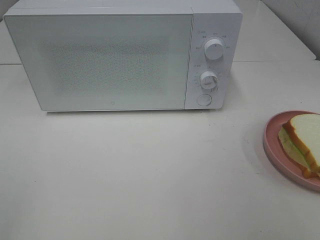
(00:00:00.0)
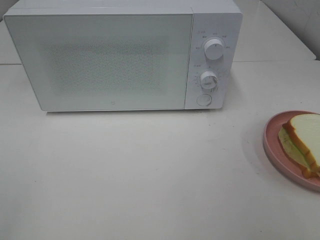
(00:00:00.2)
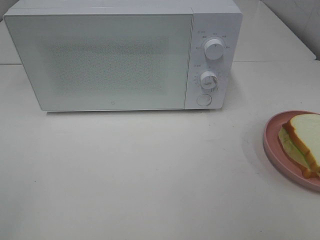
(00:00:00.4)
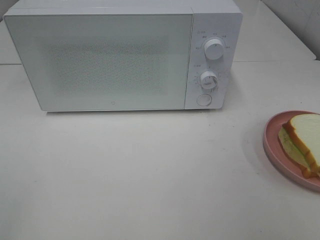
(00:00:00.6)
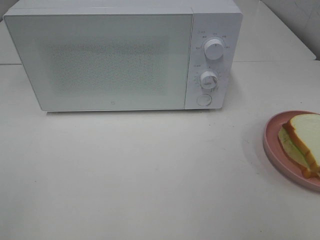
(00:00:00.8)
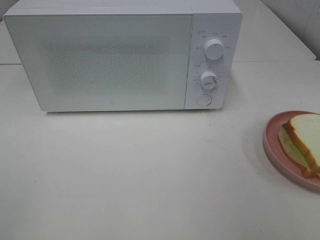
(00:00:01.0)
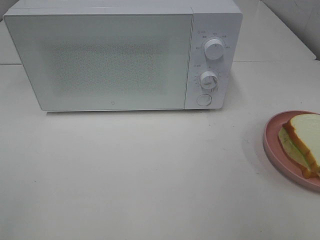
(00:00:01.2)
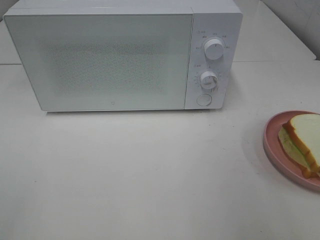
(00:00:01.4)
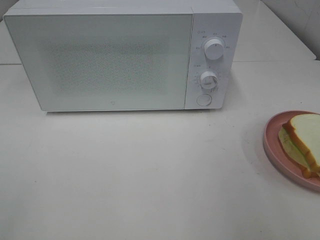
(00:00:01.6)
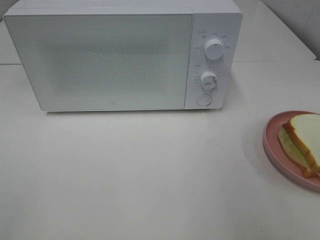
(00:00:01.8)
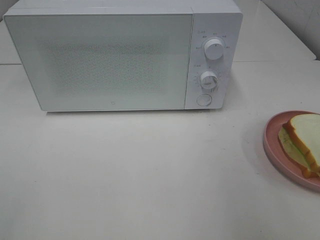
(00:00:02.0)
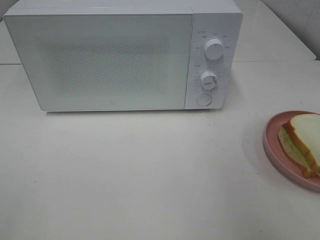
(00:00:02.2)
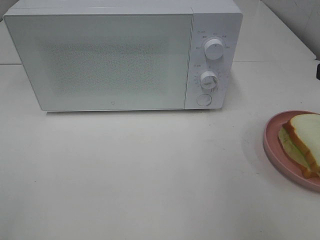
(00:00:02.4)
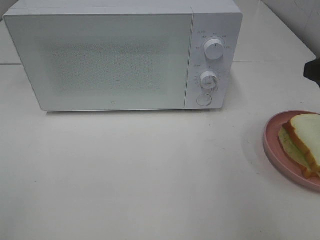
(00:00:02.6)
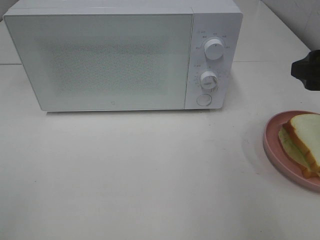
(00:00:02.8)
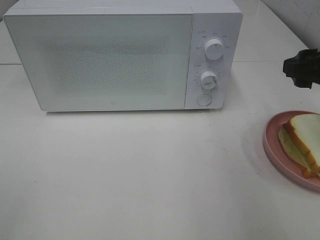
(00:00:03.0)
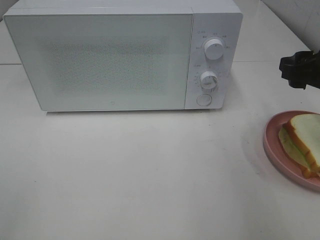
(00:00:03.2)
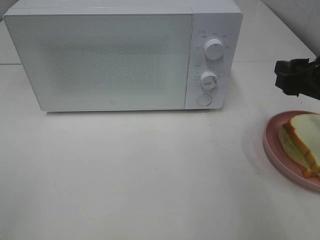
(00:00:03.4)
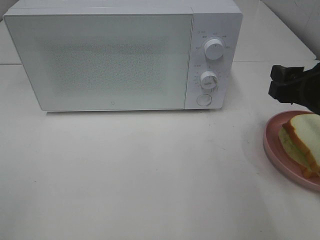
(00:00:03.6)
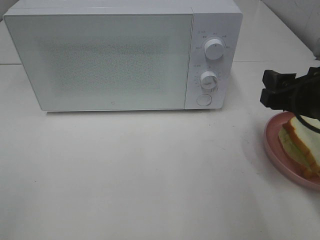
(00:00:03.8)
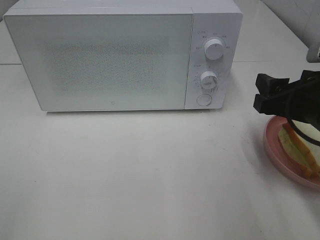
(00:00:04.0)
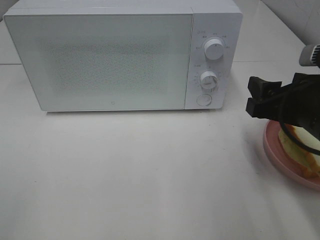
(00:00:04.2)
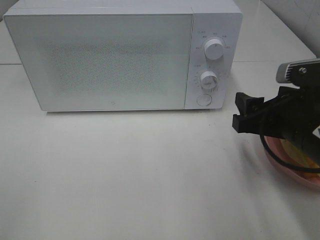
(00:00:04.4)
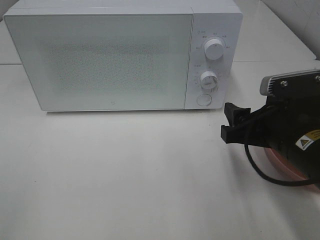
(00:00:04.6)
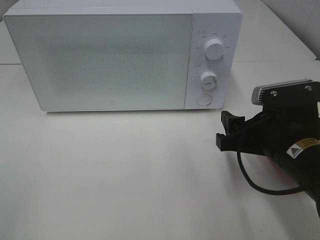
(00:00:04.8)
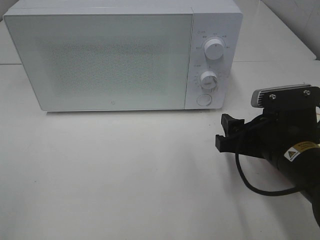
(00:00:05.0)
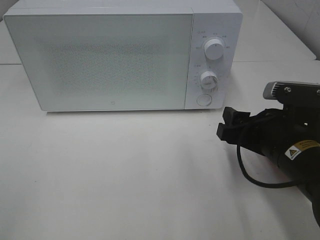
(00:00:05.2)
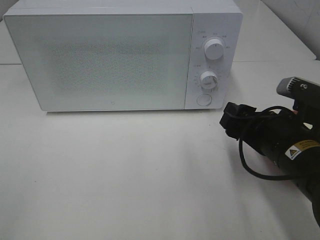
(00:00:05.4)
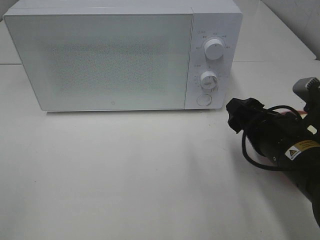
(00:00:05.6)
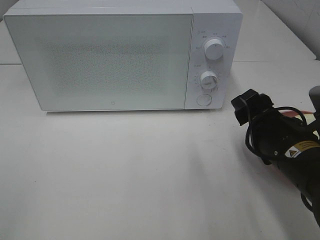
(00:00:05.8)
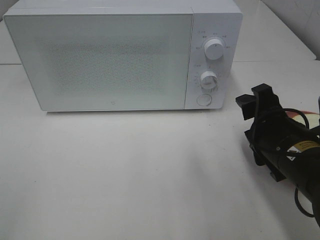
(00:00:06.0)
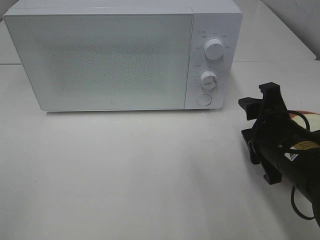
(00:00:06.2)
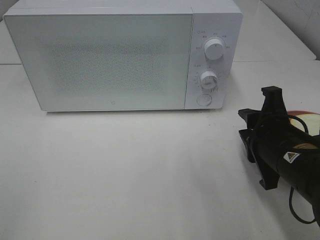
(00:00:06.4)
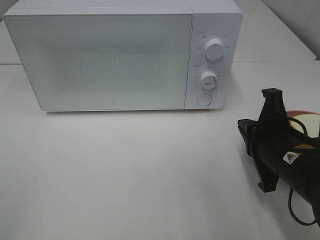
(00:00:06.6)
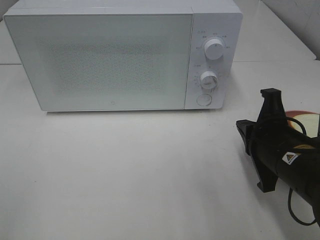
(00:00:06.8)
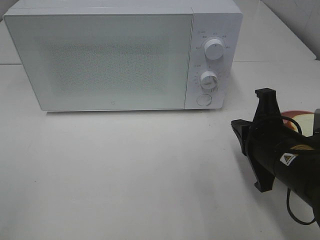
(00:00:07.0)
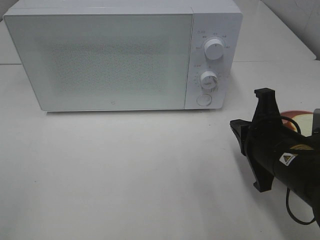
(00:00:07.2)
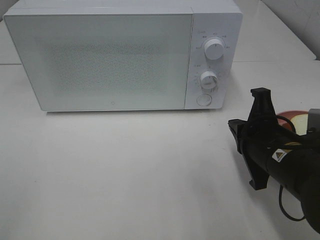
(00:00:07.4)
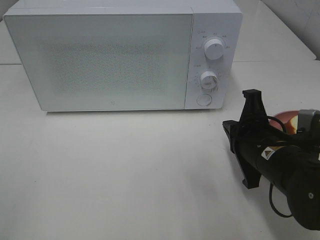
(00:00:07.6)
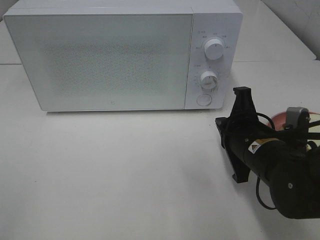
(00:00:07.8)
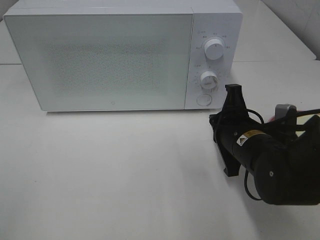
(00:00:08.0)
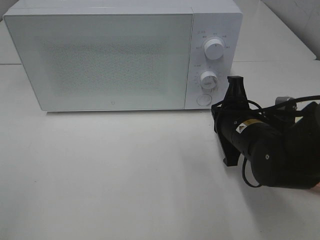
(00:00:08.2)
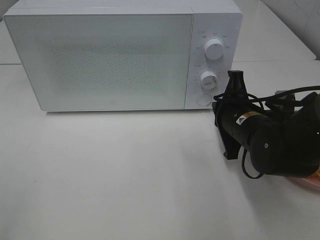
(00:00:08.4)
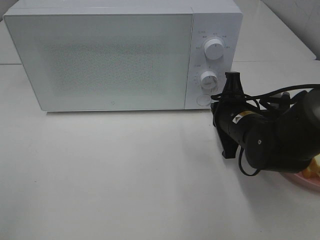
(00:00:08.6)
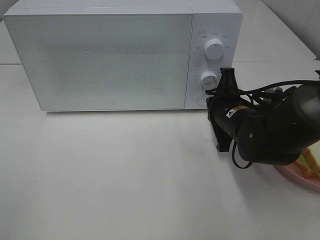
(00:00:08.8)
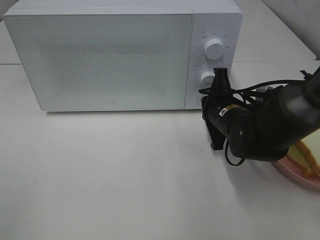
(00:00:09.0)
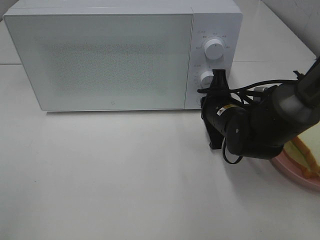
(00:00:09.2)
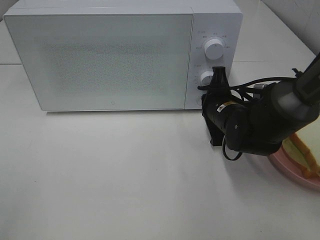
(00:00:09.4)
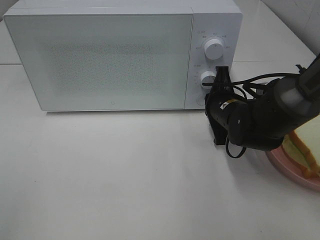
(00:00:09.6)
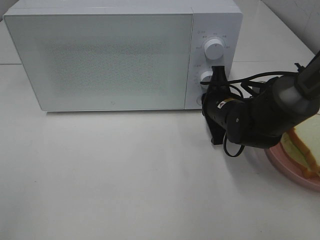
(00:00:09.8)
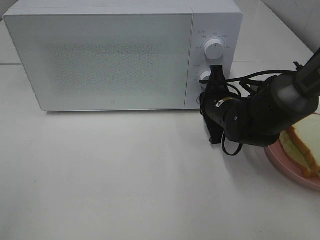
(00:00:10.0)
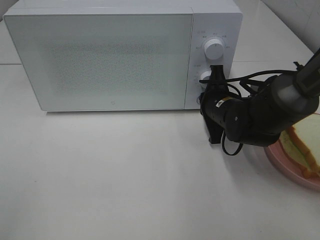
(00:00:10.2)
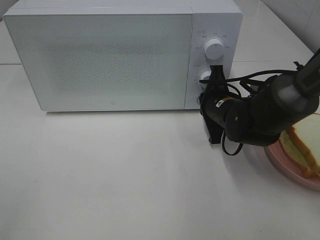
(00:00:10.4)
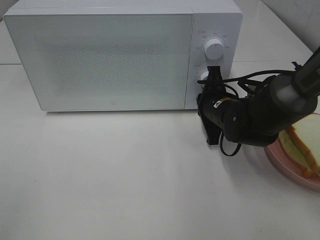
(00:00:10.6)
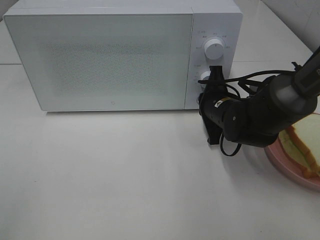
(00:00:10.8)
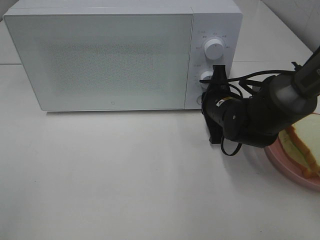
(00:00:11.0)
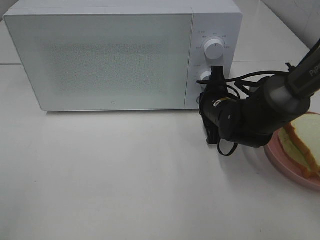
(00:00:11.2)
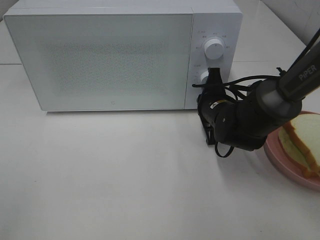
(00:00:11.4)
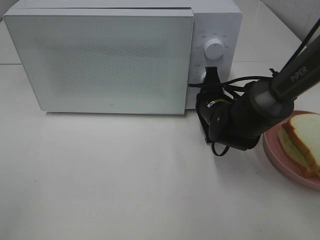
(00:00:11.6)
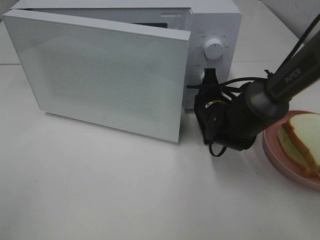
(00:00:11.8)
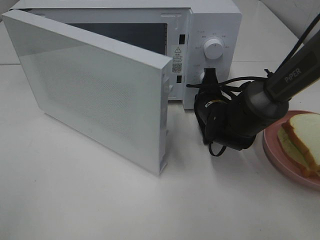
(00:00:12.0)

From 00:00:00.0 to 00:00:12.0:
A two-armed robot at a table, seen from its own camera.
Task of the whole recording: Heat Sandwich.
From 00:00:01.6 to 00:00:03.0: The right gripper shifts approximately 15 cm forward and downward.
From 00:00:03.0 to 00:00:04.4: The right gripper travels to the left and downward by approximately 10 cm.
From 00:00:06.0 to 00:00:07.6: The right gripper closes its fingers.
From 00:00:07.6 to 00:00:09.0: The right gripper goes about 10 cm forward.
From 00:00:09.0 to 00:00:10.4: The grippers move only a little.

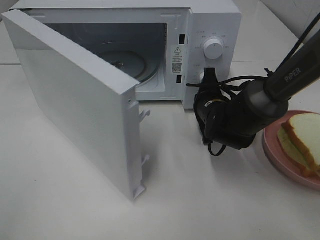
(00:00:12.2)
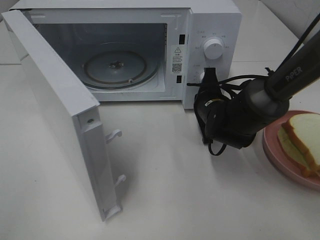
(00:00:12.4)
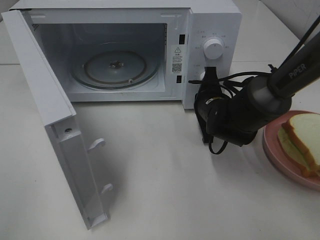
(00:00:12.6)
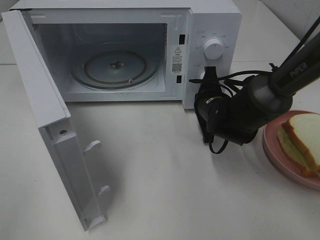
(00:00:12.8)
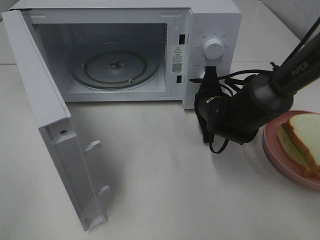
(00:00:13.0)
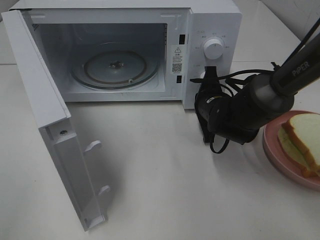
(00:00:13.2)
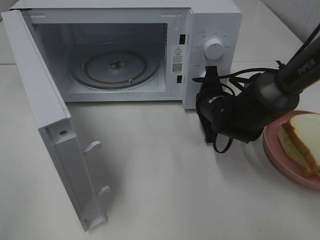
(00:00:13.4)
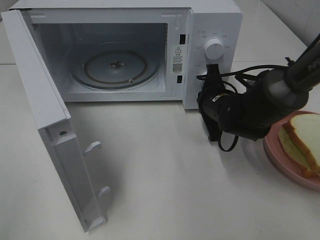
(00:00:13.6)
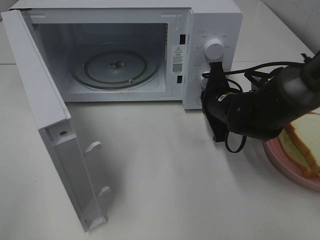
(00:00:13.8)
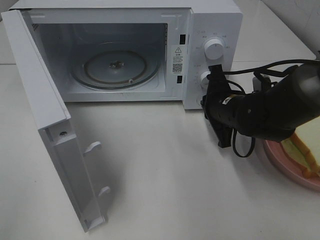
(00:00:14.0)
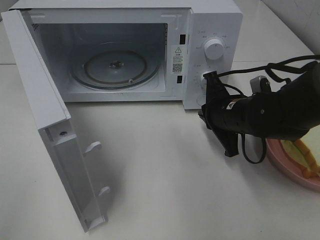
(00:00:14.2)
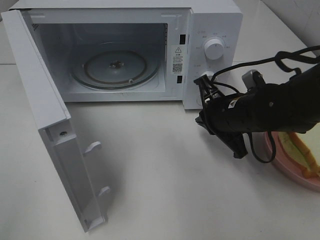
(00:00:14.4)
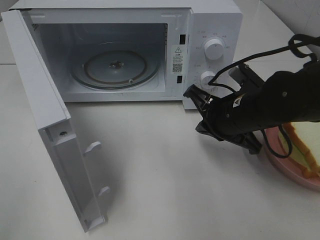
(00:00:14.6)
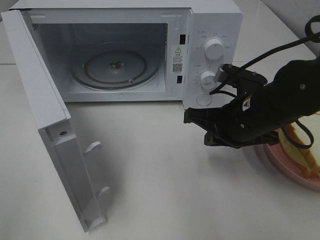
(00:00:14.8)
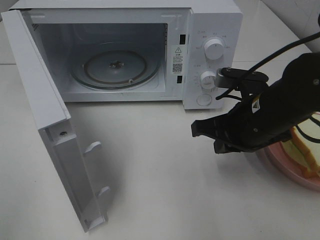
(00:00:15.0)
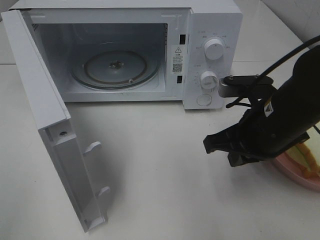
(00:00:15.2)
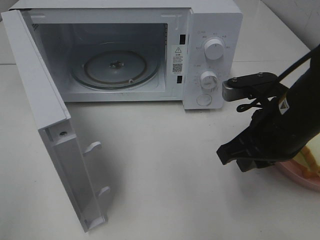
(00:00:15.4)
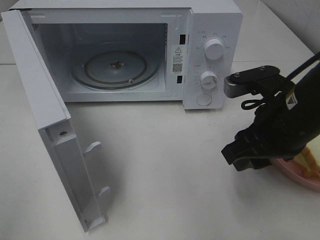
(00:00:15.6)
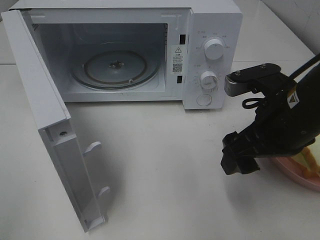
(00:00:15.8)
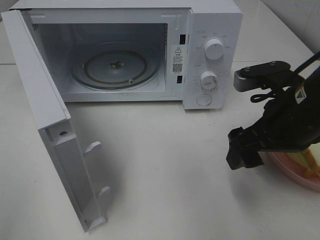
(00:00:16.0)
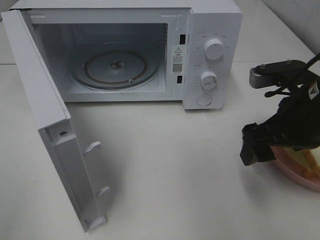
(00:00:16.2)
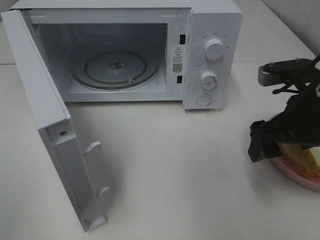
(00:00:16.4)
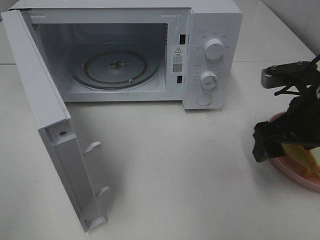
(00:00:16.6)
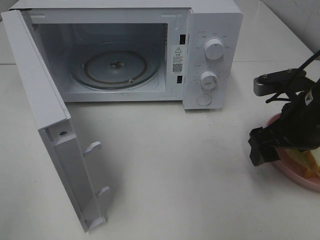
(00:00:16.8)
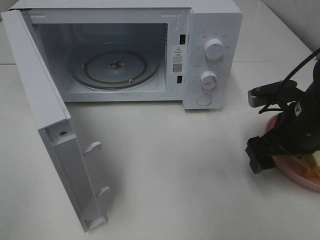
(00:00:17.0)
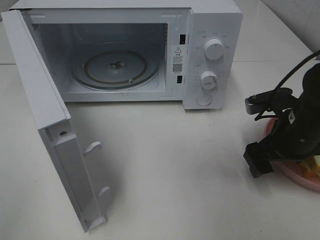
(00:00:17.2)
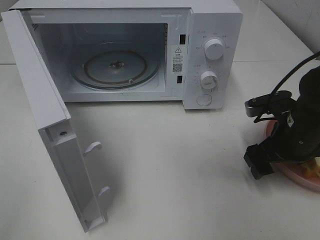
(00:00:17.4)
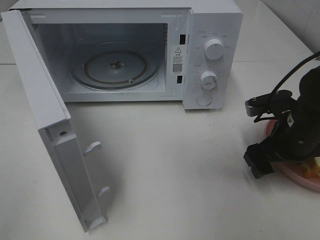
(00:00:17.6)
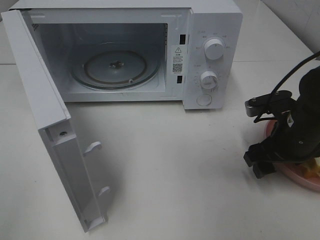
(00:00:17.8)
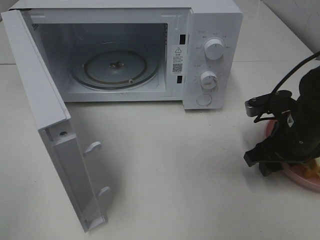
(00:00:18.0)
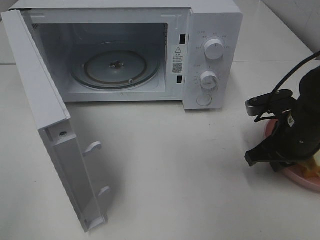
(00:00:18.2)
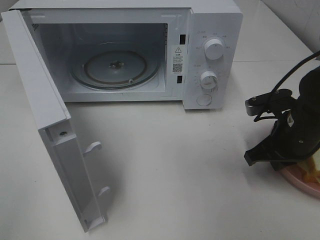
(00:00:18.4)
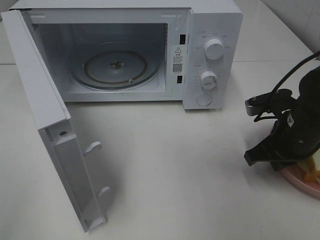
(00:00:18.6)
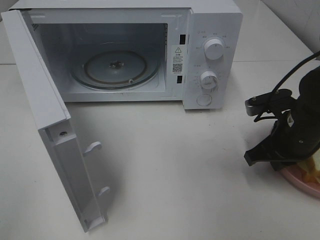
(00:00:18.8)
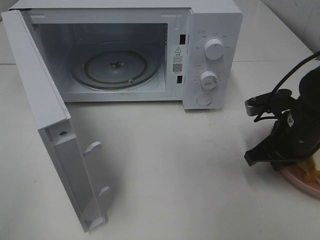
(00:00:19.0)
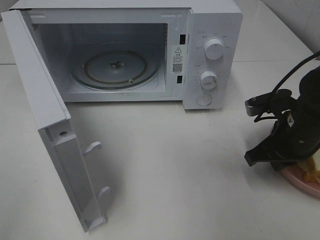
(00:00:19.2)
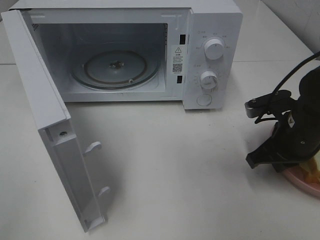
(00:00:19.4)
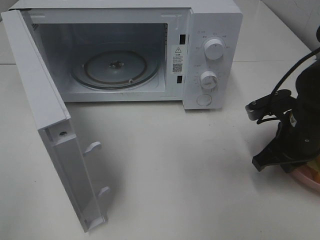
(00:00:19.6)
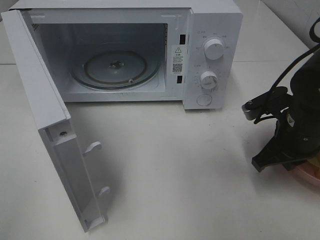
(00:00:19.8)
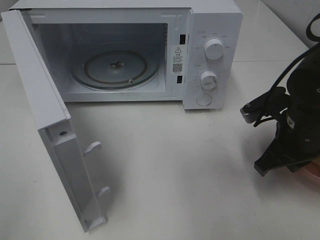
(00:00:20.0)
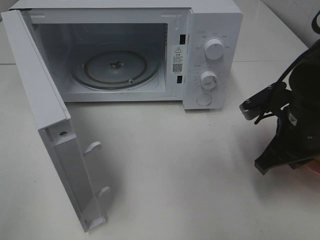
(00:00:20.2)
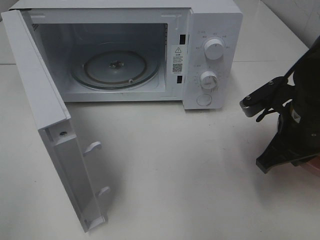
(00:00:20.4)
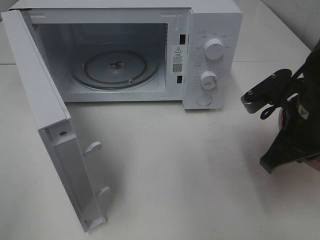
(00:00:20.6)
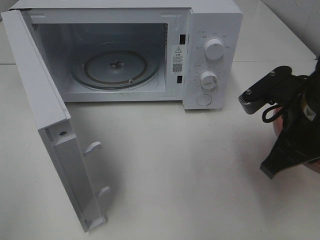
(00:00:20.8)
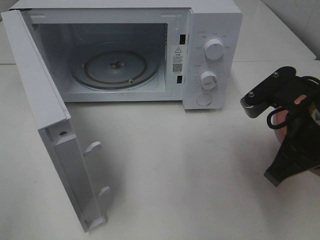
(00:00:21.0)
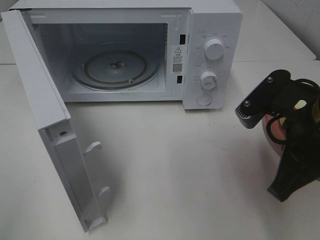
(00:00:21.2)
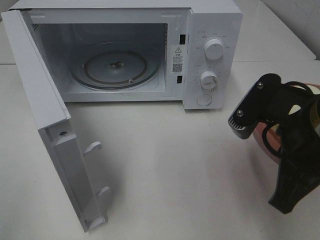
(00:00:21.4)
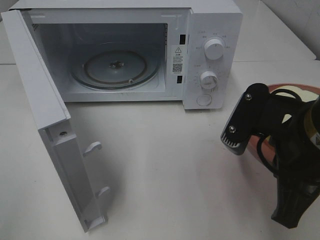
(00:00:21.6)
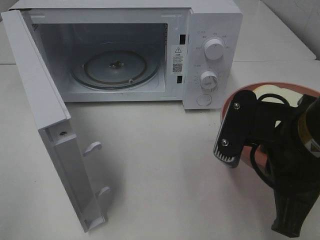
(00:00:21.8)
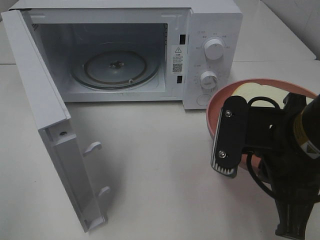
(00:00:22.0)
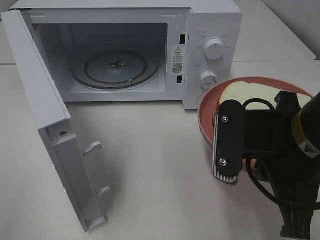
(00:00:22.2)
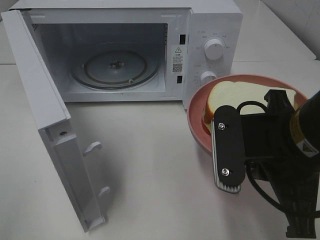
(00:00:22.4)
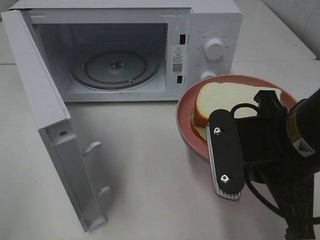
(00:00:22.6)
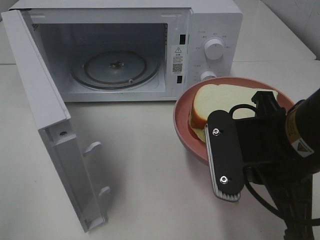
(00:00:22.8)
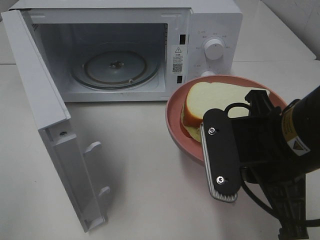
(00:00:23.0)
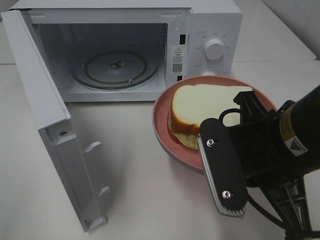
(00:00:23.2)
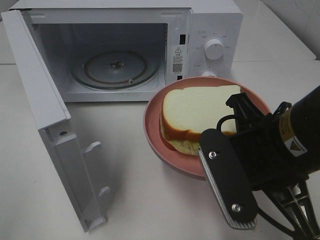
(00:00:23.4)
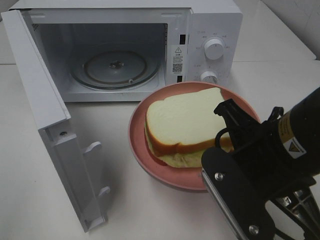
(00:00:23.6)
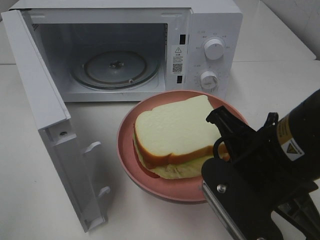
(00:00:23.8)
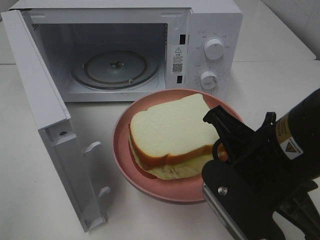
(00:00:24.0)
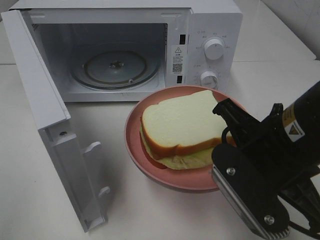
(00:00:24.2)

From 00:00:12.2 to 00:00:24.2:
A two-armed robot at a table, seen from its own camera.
Task of the whole recording: Heat Sandwich.
Step, from 00:00:14.0 to 00:00:19.2: Right hand: grab the plate with the sandwich.
From 00:00:13.8 to 00:00:15.2: The right gripper is displaced backward and upward by roughly 15 cm.
From 00:00:15.2 to 00:00:16.6: The right gripper moves to the right, about 5 cm, and opens up.
From 00:00:16.6 to 00:00:18.2: The right gripper goes approximately 5 cm downward, and closes its fingers.
From 00:00:18.2 to 00:00:19.8: There are only small adjustments of the grippers.
From 00:00:19.8 to 00:00:21.2: The right gripper goes some 10 cm backward and upward.
From 00:00:21.2 to 00:00:22.6: The right gripper moves approximately 5 cm.
